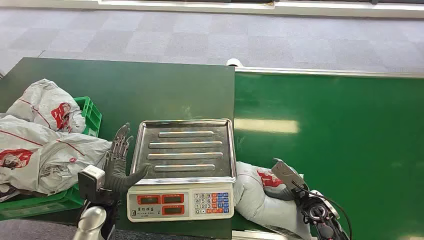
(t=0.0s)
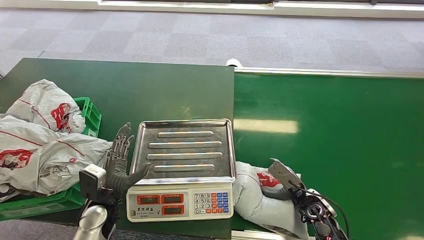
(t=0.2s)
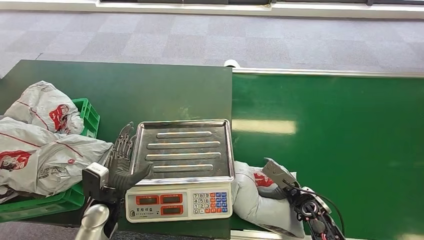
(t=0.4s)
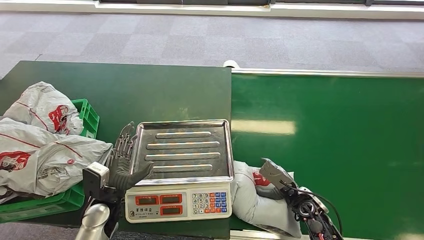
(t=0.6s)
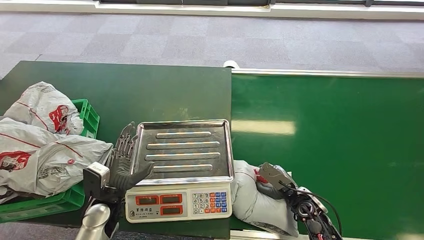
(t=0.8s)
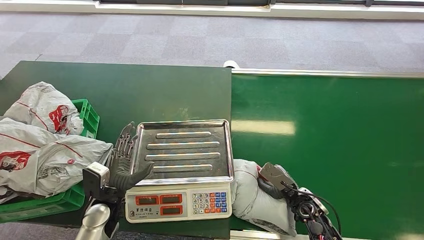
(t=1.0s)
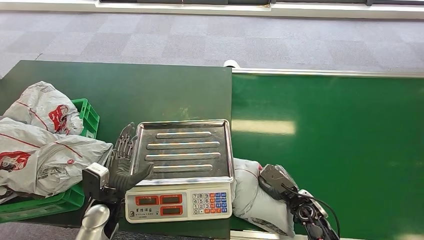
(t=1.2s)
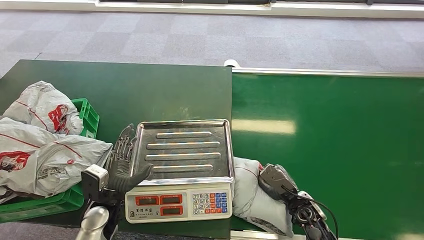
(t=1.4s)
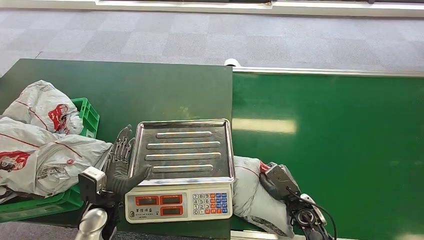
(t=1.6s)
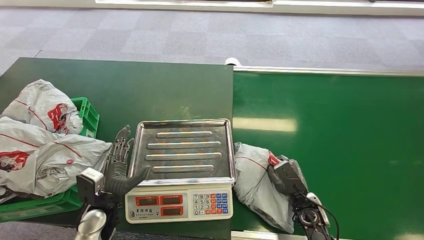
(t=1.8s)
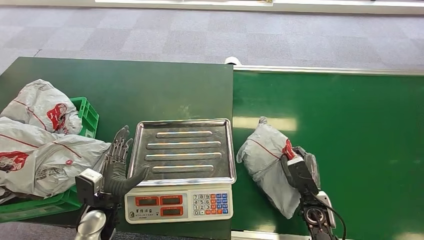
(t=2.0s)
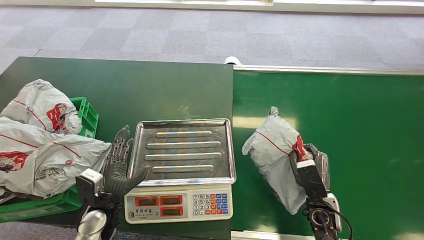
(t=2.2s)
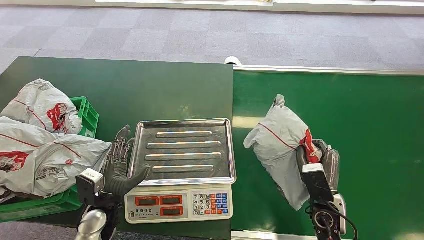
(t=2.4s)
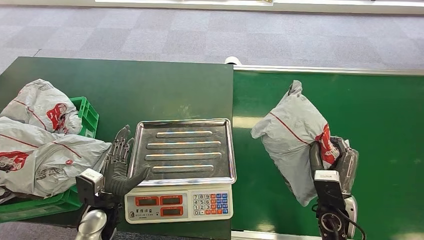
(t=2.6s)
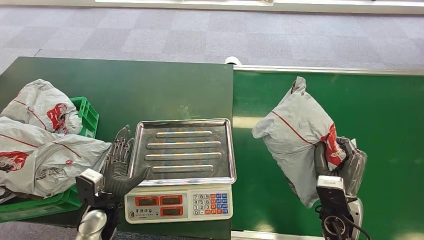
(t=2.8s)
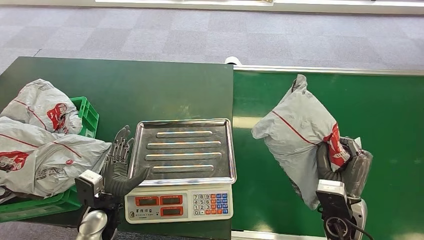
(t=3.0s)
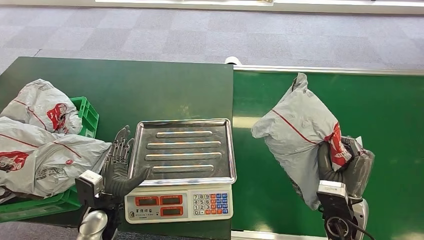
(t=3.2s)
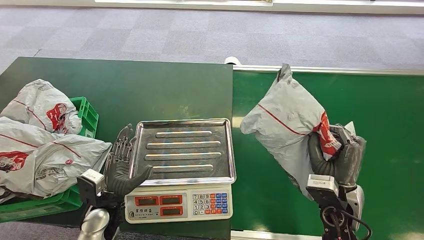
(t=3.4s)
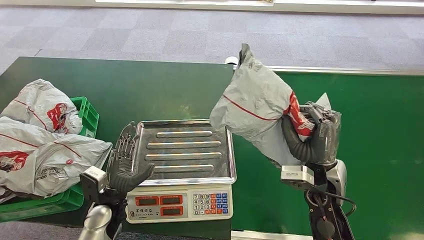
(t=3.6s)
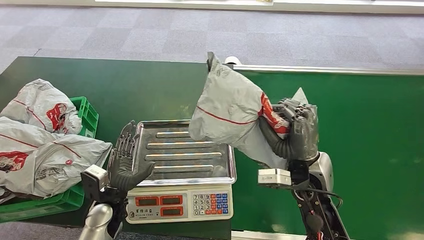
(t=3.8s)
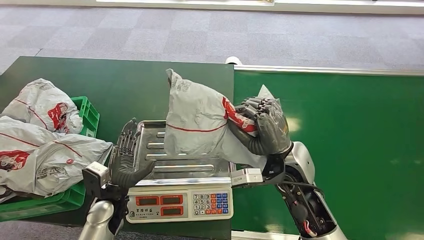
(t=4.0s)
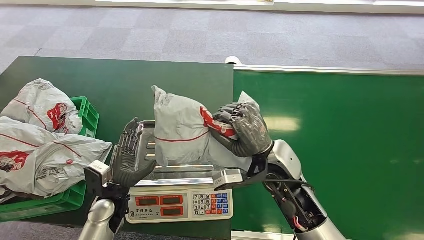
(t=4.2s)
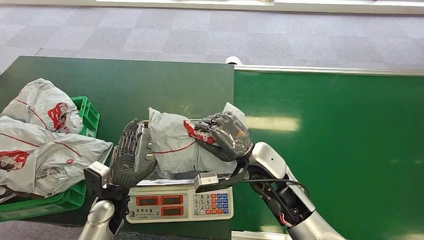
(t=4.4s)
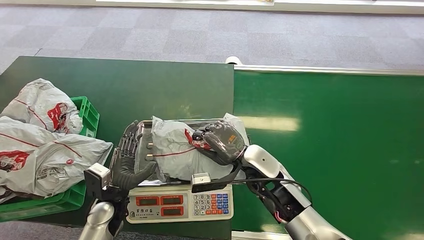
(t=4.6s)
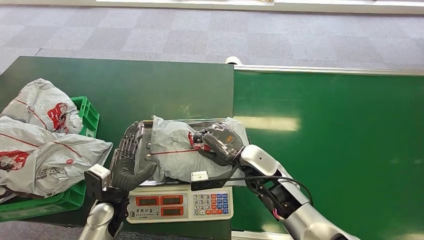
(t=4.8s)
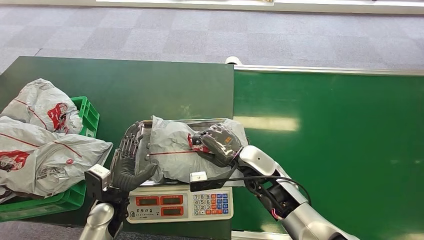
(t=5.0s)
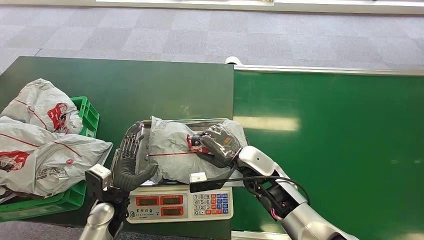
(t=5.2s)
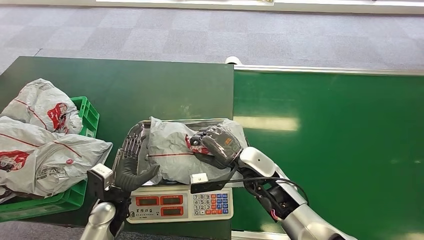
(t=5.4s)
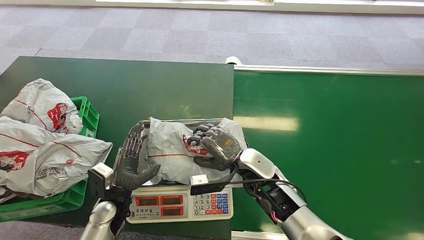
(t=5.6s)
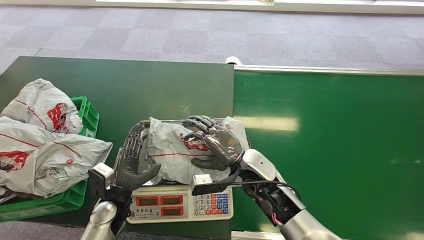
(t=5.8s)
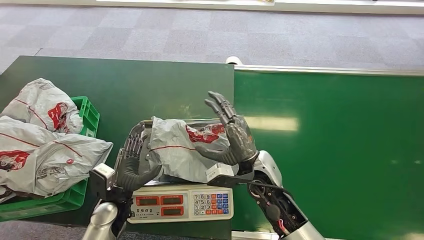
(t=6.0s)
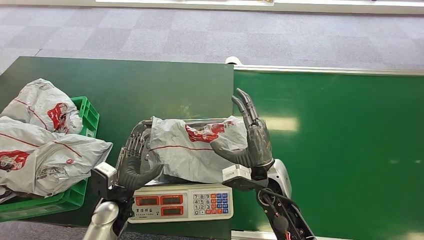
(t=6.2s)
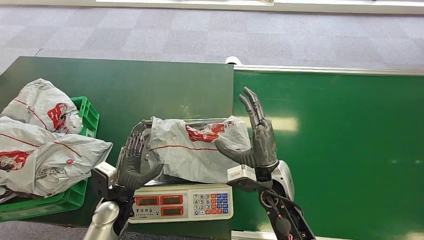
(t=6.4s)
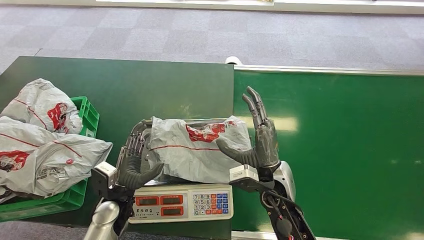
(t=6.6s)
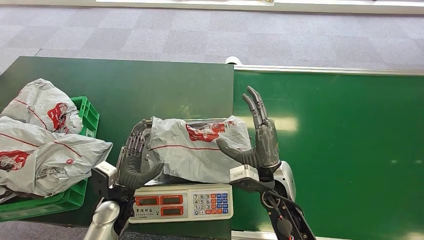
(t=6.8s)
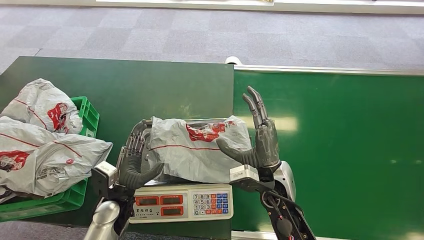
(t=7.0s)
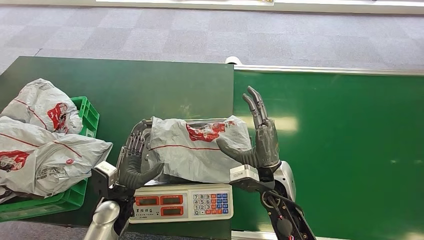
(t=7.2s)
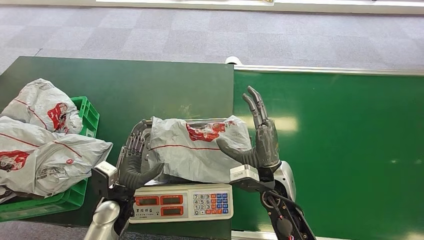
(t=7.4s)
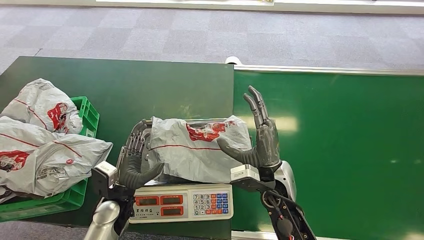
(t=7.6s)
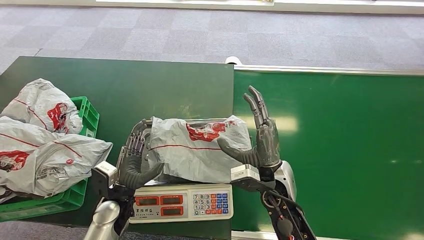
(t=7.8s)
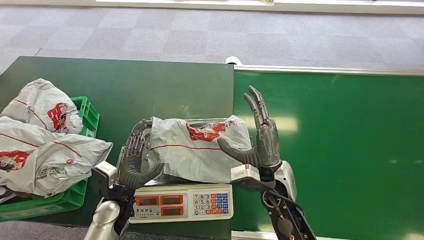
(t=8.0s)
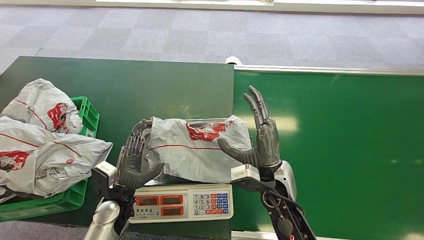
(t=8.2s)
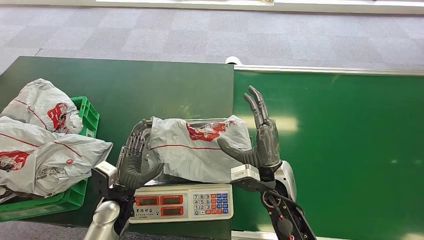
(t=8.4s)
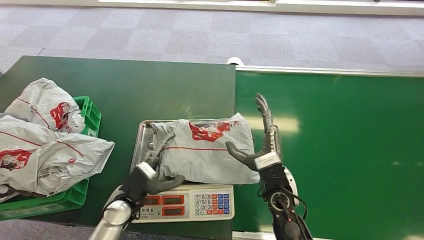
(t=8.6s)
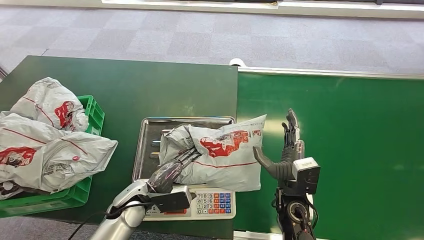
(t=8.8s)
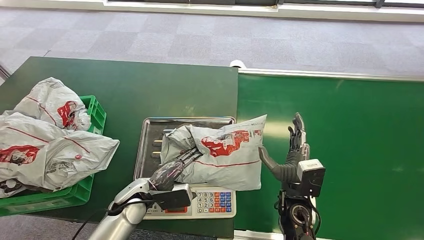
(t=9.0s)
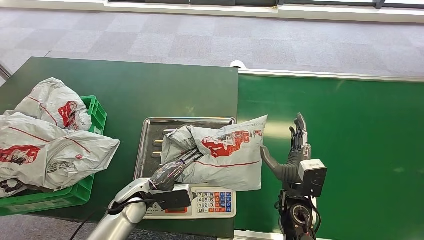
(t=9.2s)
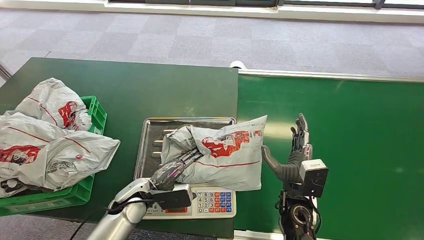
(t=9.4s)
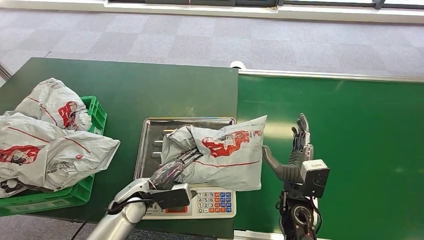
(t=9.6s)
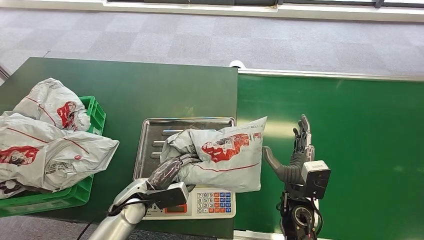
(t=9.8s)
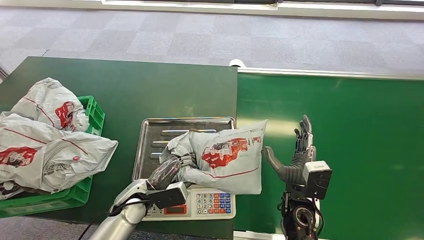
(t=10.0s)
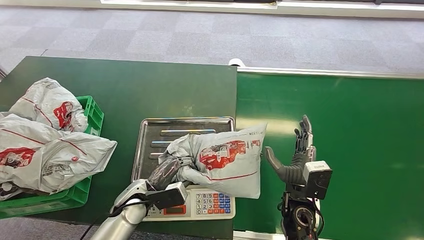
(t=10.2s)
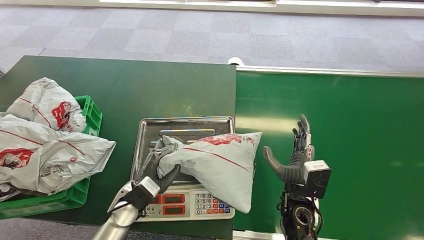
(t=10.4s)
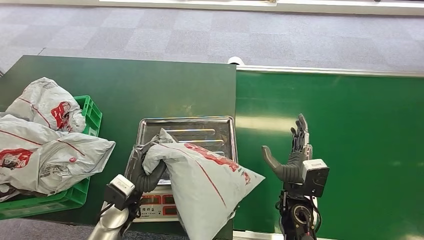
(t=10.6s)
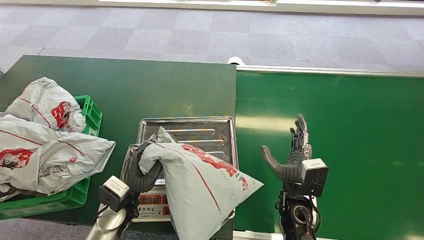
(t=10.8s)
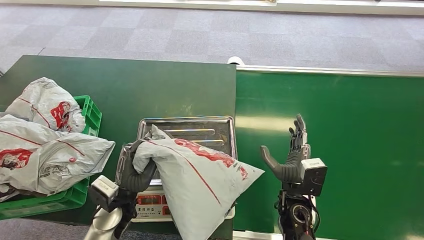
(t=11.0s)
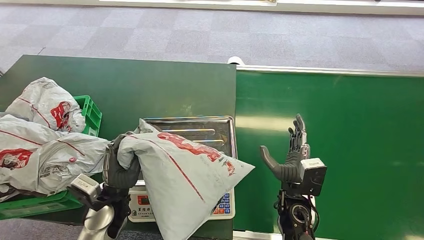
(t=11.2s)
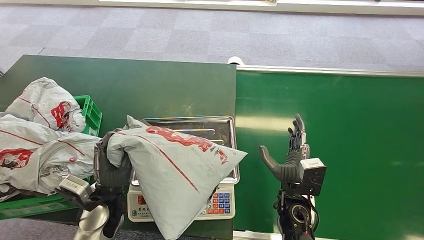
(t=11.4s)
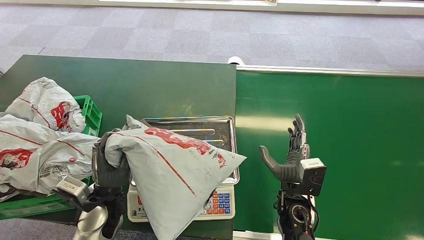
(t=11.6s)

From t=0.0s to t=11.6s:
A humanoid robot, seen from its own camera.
Step, from t=0.0s to t=3.4s: Pick up the package from the conveyor belt.
Step, from t=4.0s to t=8.0s: Place the package onto the inbound machine.
From t=4.4s to t=5.8s: The hands move only a little.
From t=5.8s to t=7.2s: The right hand changes place by approximately 5 cm.
From t=8.8s to t=10.2s: There are only small adjustments of the hands.

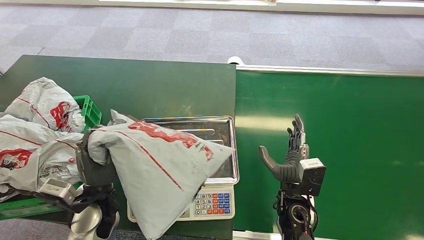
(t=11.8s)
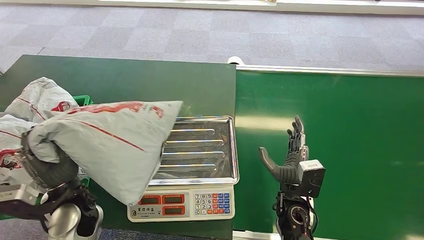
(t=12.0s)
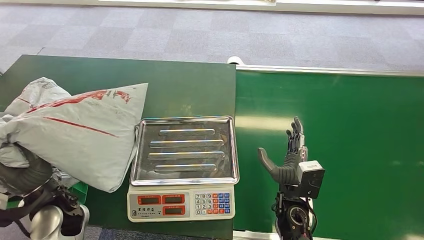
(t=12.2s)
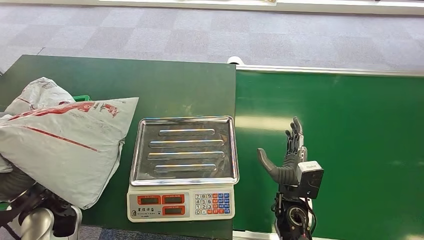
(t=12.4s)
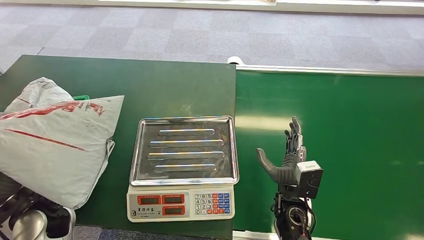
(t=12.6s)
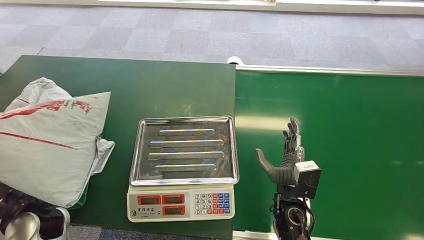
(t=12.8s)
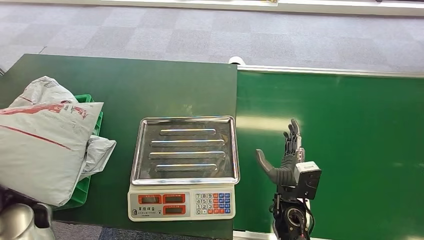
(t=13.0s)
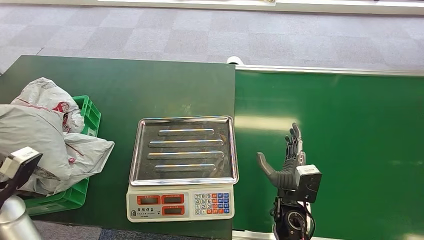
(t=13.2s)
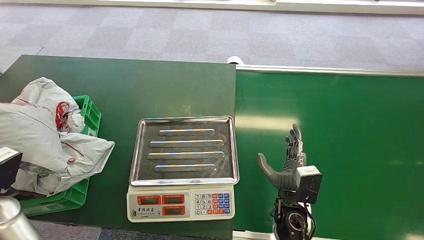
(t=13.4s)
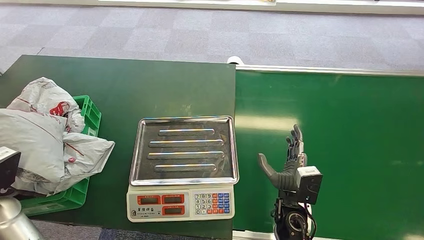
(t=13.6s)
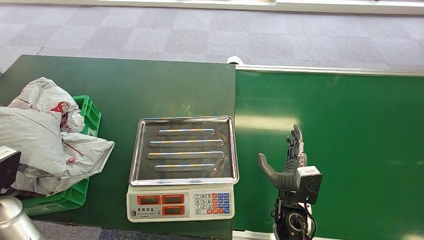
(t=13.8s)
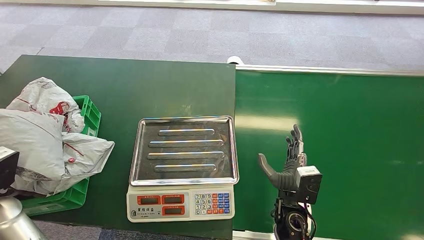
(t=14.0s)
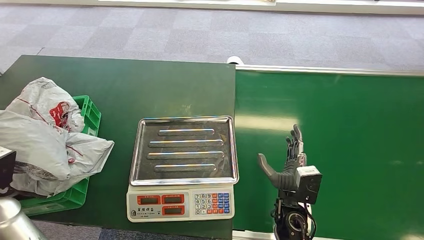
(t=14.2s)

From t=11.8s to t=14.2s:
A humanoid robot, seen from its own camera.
Step, from t=13.0s to t=14.2s: Place the package into the parcel locker.
From t=13.0s to t=14.2s: The left hand shifts some 5 cm to the left.
